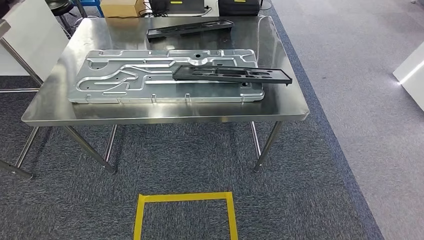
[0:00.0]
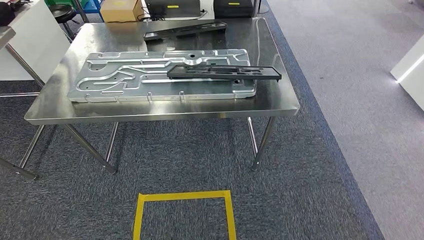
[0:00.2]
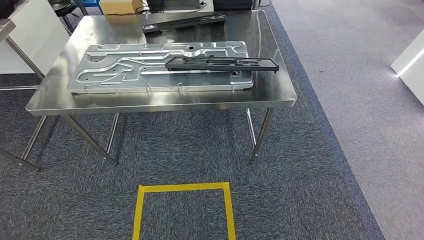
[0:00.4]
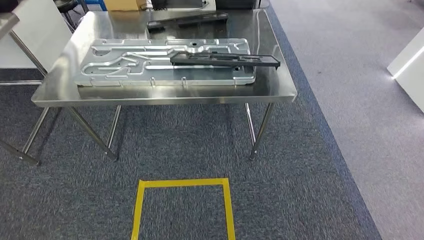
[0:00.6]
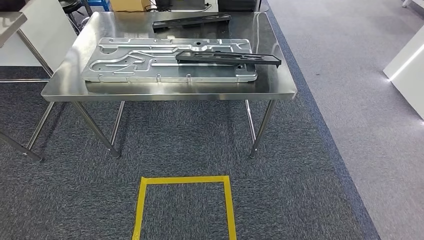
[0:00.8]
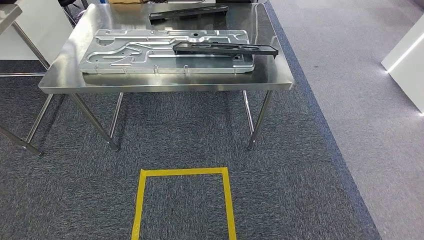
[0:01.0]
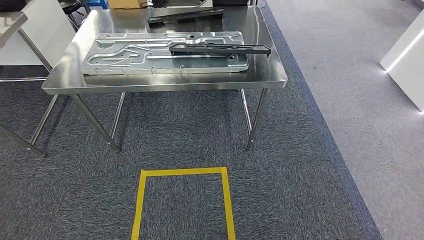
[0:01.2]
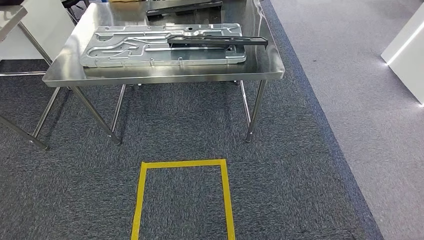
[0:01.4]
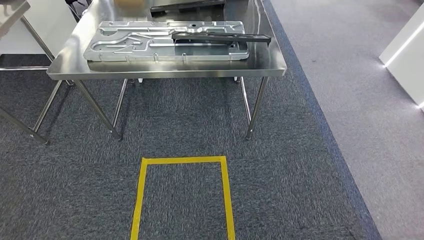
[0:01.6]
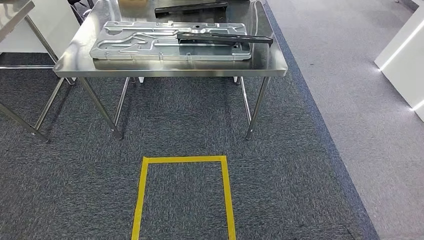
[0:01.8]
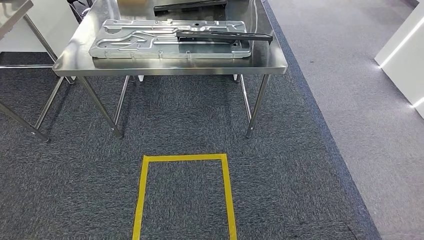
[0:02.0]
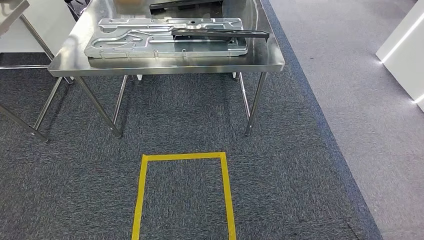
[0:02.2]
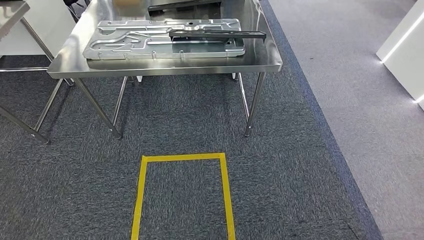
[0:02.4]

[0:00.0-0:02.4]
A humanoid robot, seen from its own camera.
Step, 0:00.0 to 0:02.4: Move to the initial position of the shelf.
0:01.2 to 0:02.4: Both hands stay put.
